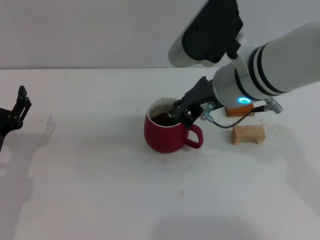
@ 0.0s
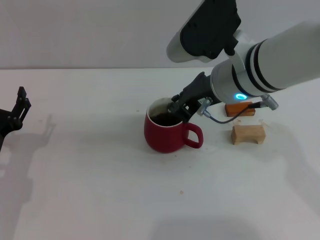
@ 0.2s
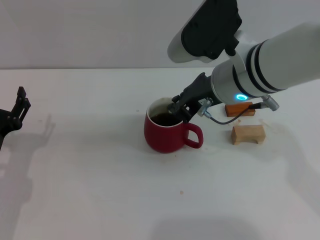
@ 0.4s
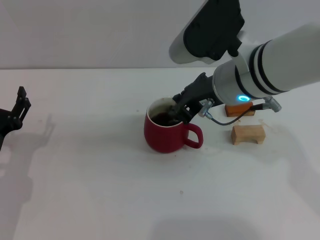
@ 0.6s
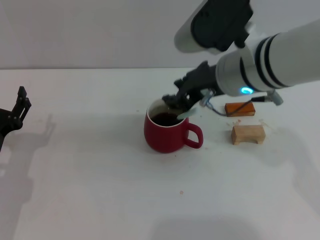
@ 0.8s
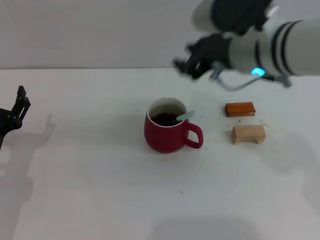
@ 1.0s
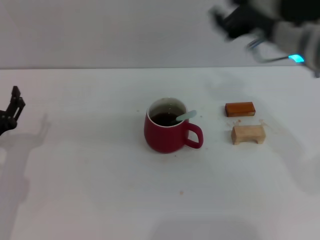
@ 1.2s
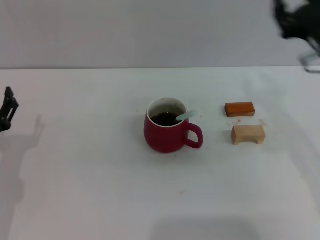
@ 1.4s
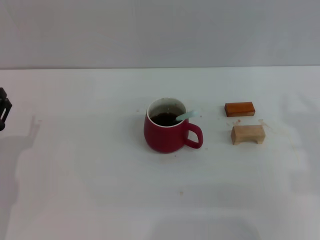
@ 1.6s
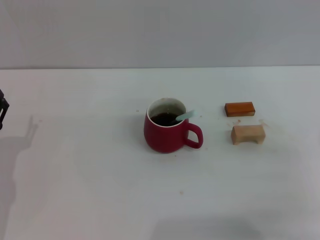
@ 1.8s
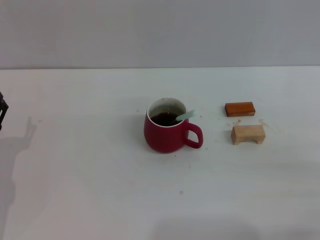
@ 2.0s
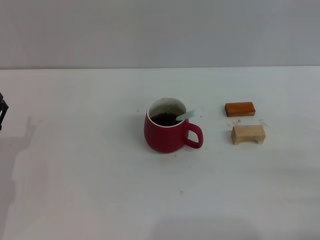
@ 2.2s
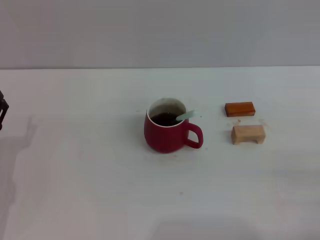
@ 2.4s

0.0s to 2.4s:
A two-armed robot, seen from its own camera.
Task of the whole recording: Move the red cup to the center, lift the blue spoon, stir it three times in the cup, and put the spoon into the cup.
0.0s to 1.2s: The right gripper moves to the right, approximately 5 cm.
1.2s to 2.4s: The right gripper is displaced downward, backward and to the right by some 30 cm.
